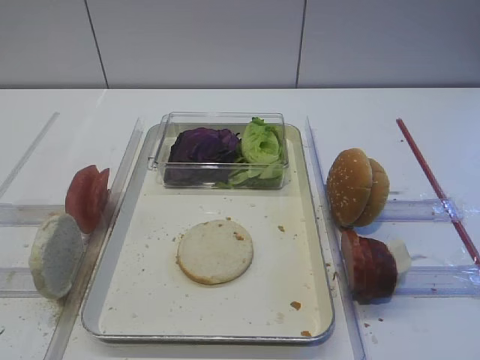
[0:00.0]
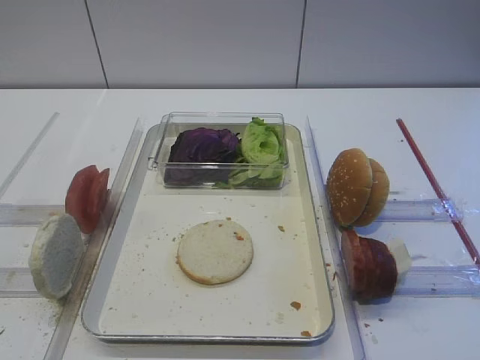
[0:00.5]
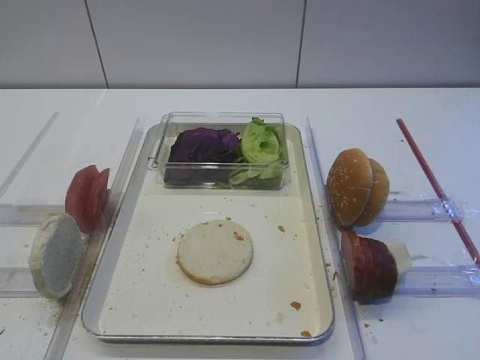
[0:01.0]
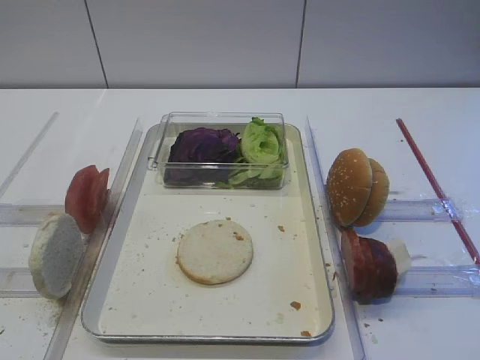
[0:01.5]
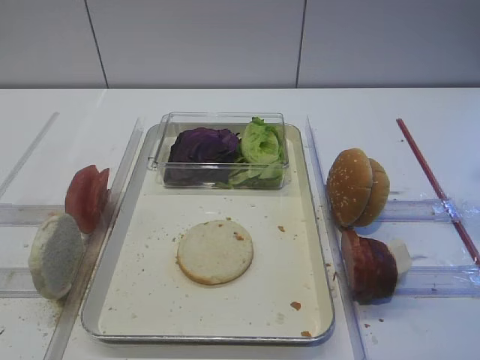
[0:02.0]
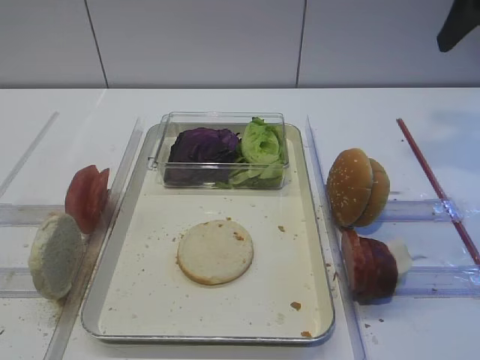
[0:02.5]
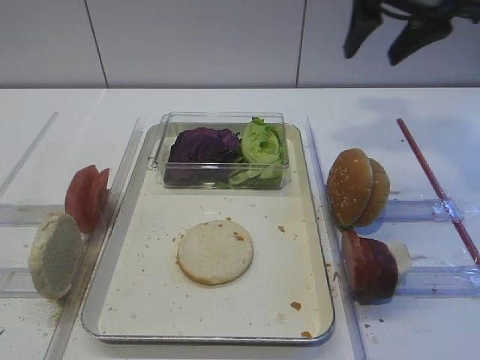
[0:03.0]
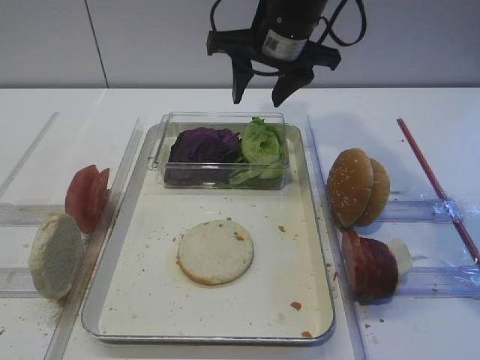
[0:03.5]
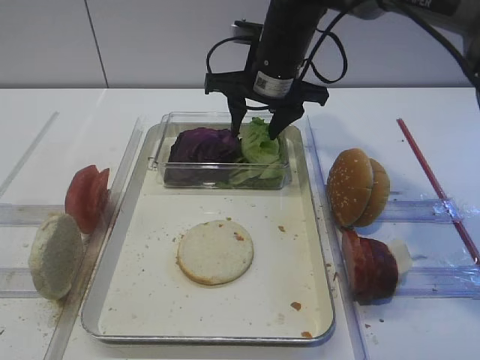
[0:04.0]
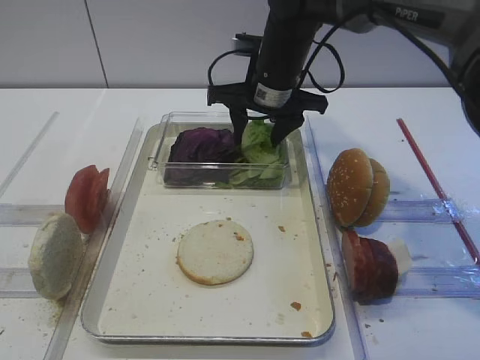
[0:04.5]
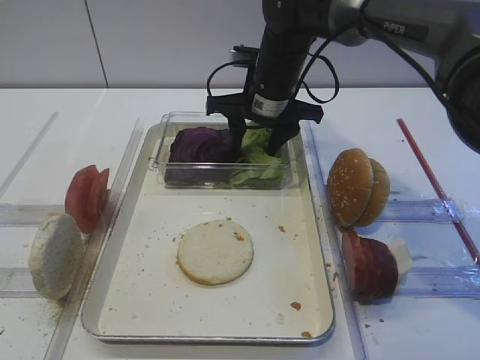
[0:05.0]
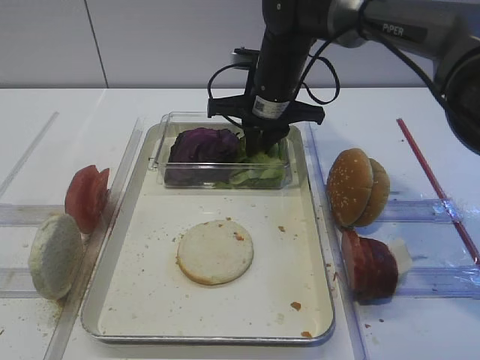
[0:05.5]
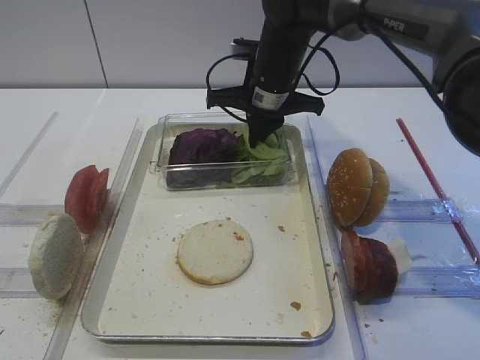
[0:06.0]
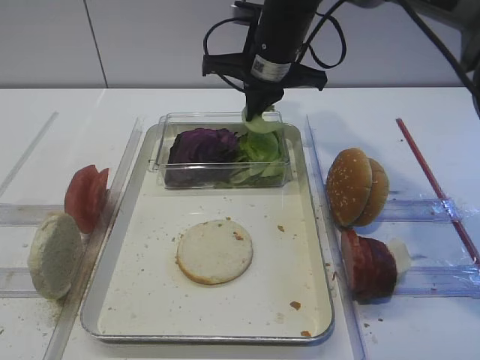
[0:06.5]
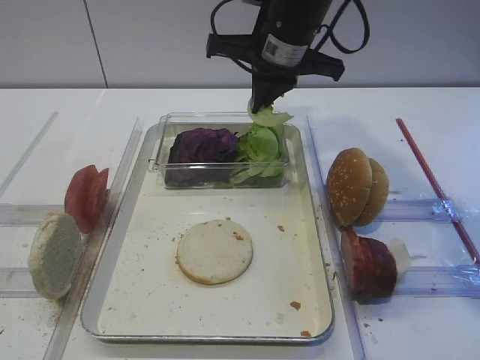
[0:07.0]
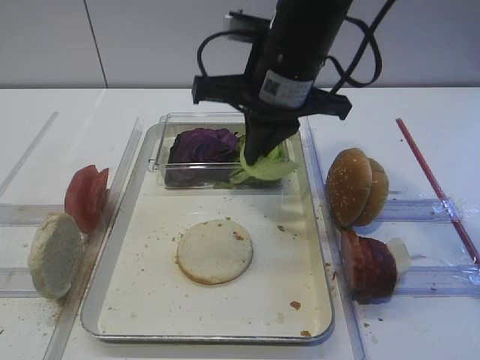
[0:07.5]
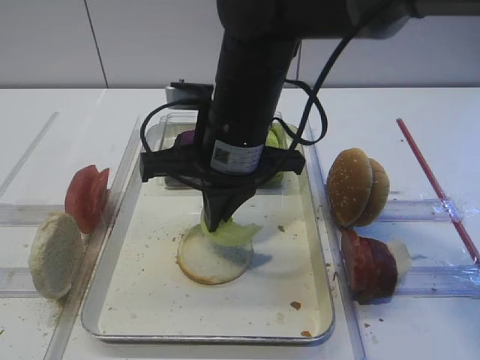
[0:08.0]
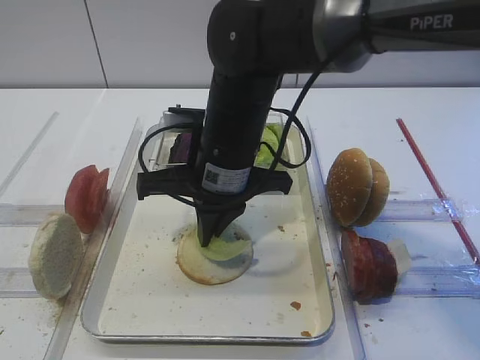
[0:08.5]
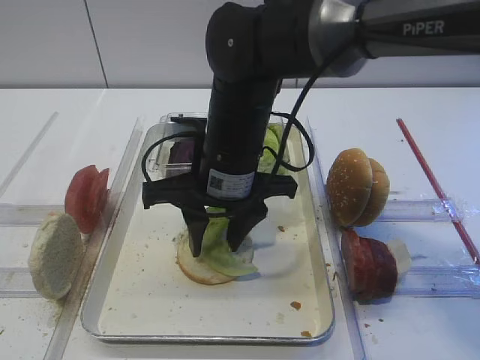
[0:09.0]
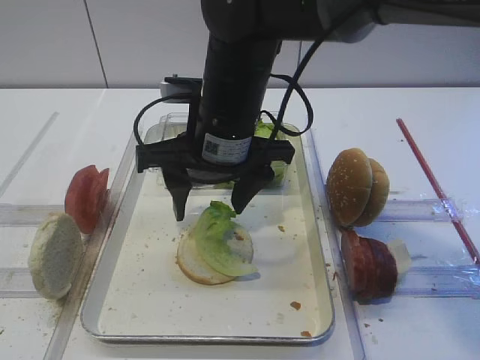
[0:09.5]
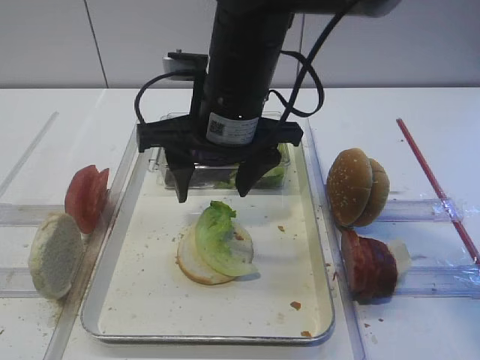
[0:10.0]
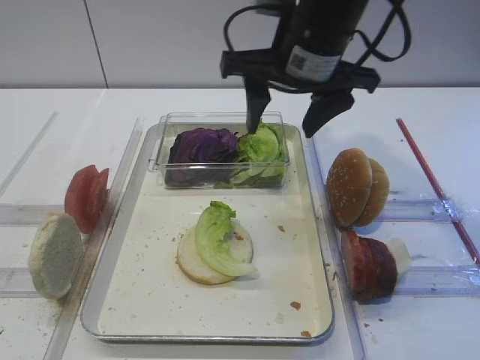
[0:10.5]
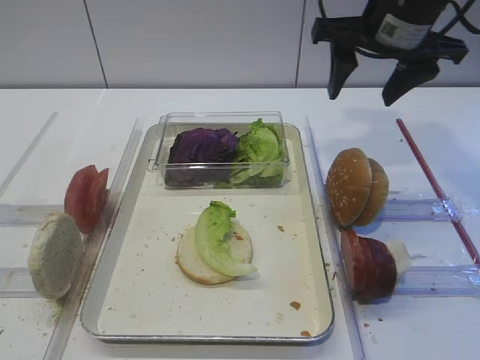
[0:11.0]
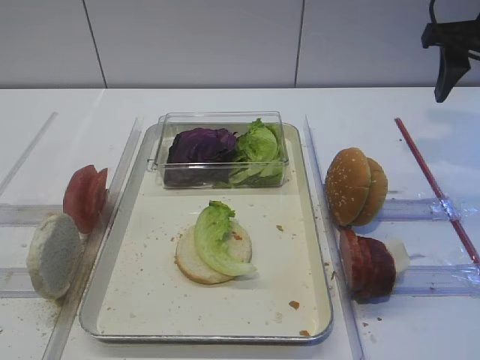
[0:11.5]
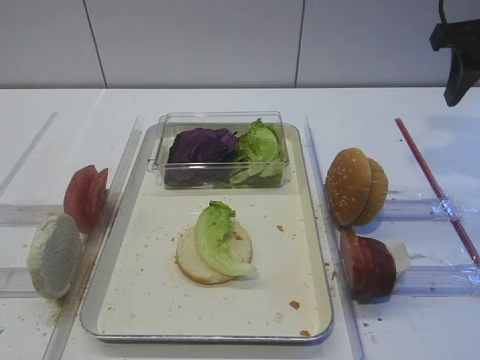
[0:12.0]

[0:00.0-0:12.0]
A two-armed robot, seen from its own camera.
Step, 0:00.0 to 0:06.5: Pick up the lettuce leaf with the right gripper.
Step, 0:07.0 to 0:10.0: Place the lettuce leaf on the bread slice with the right gripper.
0:02.0 to 0:04.0: The right gripper shifts some 35 cm forward, to the left and downward.
0:04.0 to 0:06.0: The right gripper closes up.
0:06.0 to 0:08.0: The right gripper moves backward, some 15 cm.
0:08.0 to 0:10.0: The right gripper opens up.
0:10.0 to 0:12.0: The right gripper goes roughly 30 cm to the right.

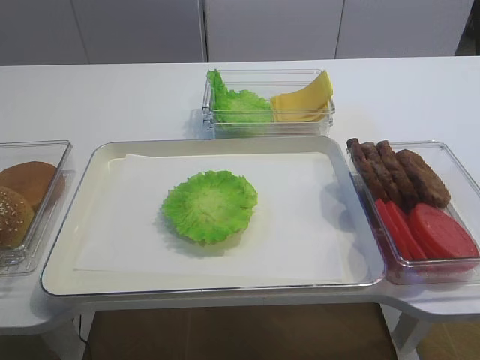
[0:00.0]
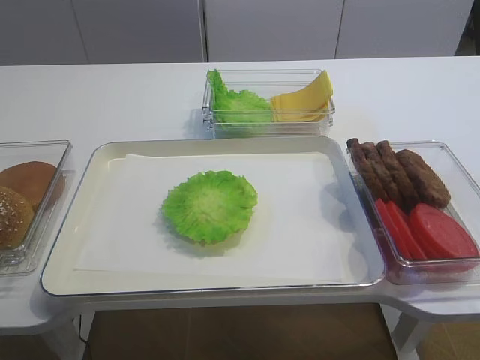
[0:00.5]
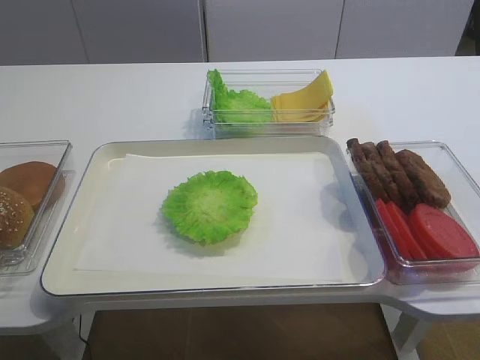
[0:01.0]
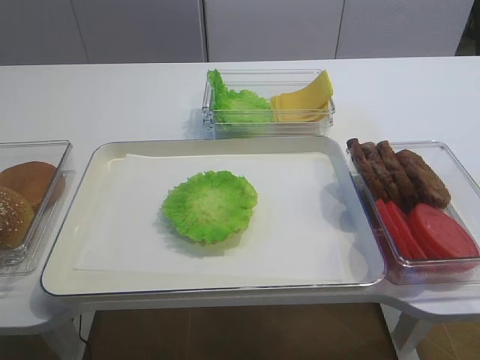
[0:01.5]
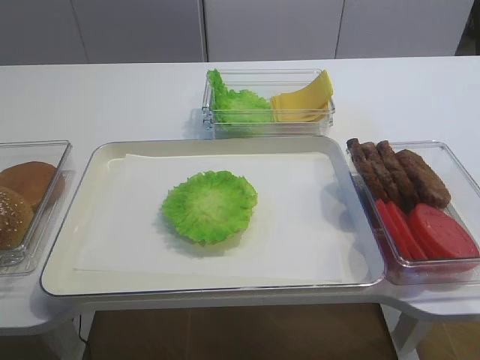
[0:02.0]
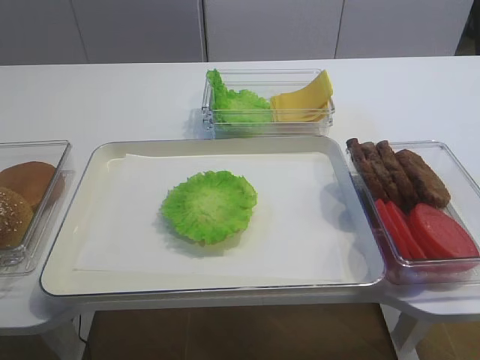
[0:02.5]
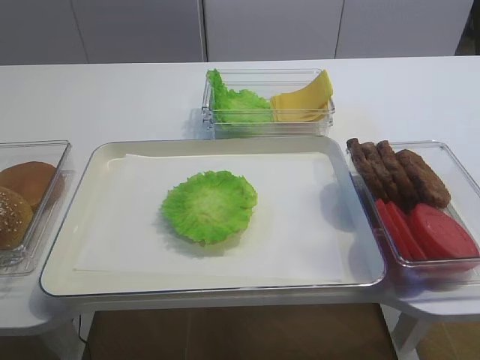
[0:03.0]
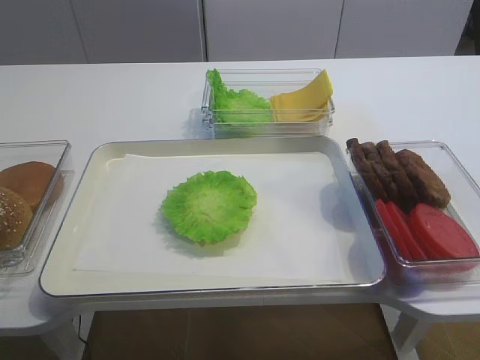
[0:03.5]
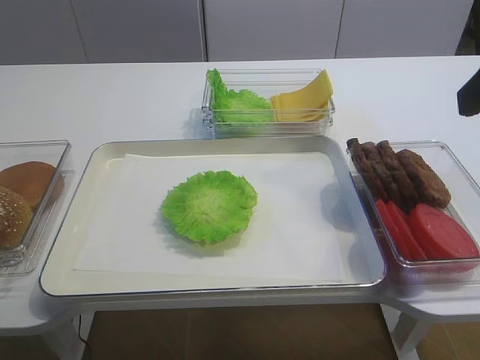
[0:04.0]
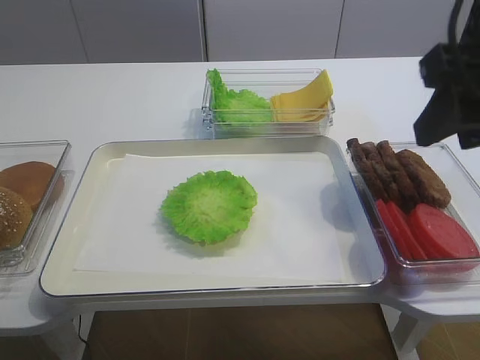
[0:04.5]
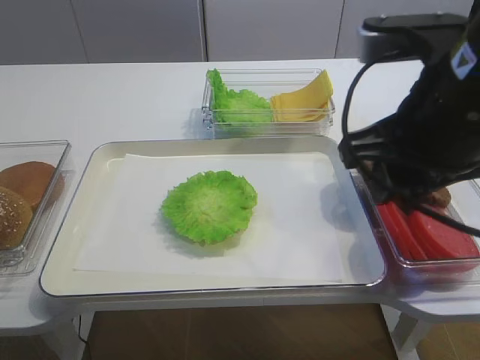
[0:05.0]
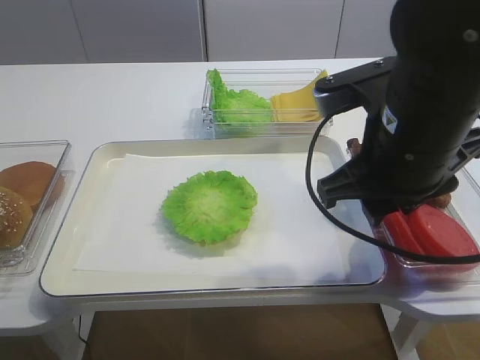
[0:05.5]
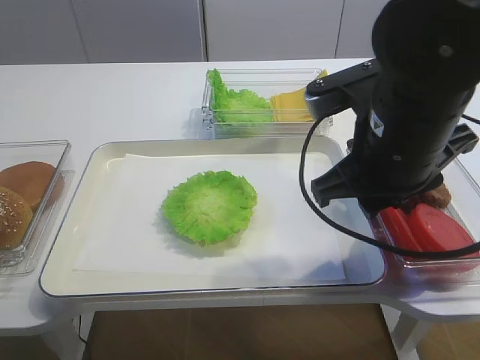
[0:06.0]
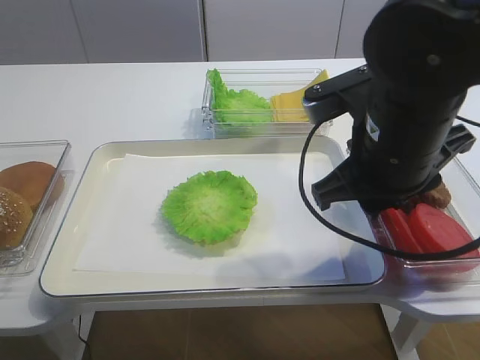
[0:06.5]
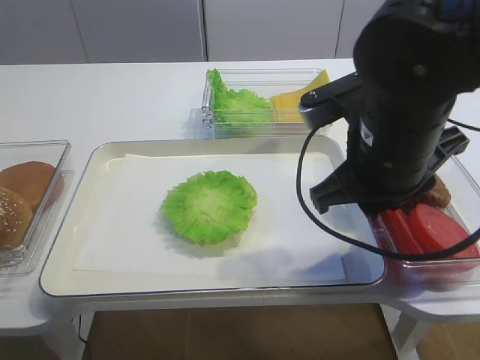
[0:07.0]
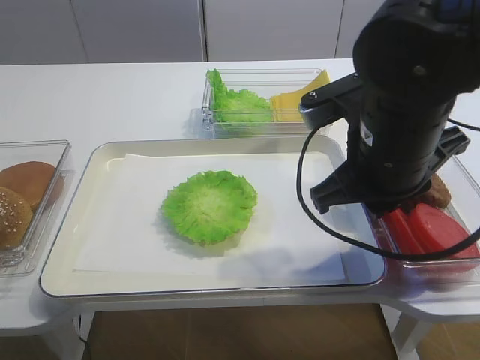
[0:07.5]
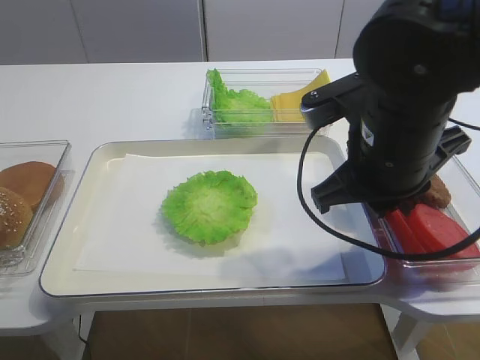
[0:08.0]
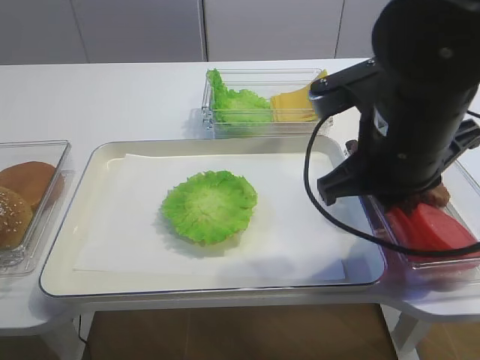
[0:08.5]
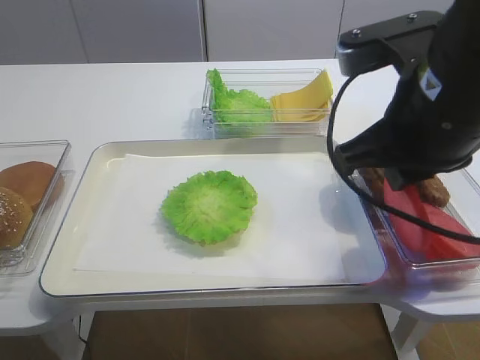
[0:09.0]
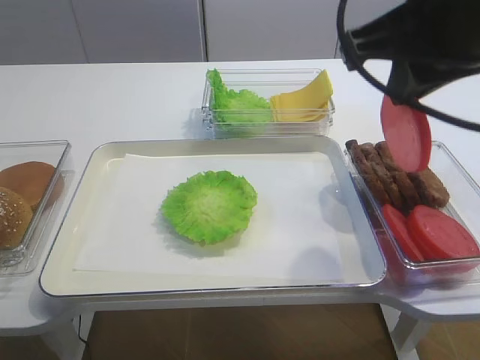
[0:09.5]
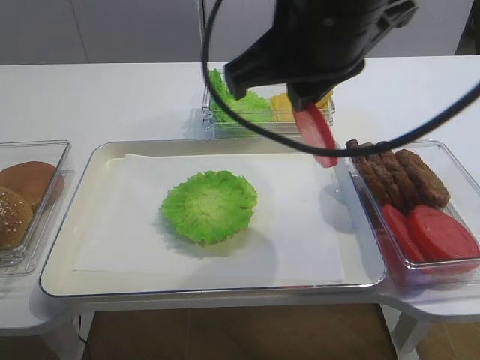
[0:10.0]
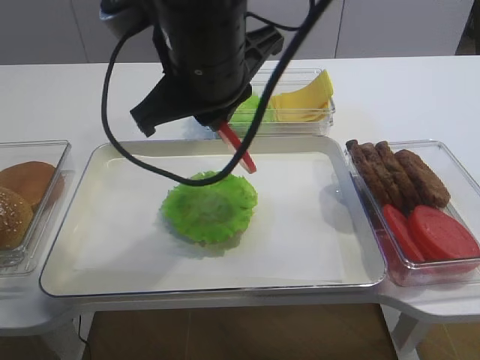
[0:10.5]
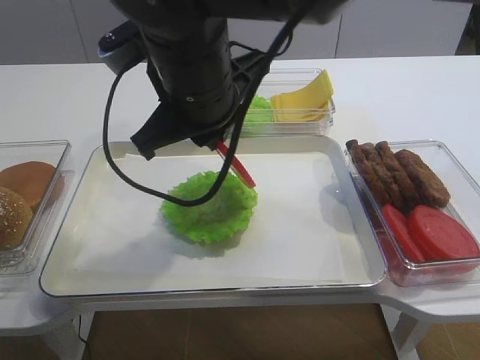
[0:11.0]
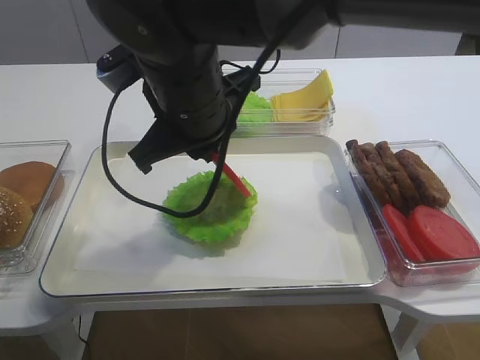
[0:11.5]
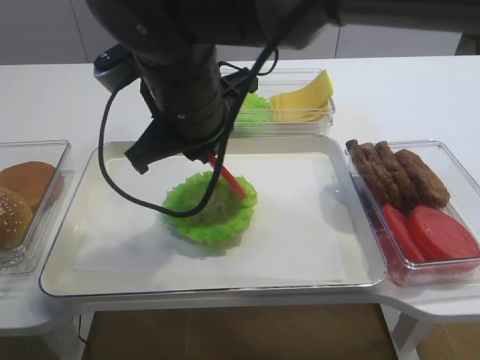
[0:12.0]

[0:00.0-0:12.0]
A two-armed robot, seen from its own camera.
Step, 0:00.0 to 0:09.0: Pick up the tomato slice with the right gripper.
0:02.0 to 0:04.0: The right gripper is displaced forward and upward by roughly 20 cm.
0:04.0 to 0:06.0: The right gripper travels downward, to the left and forward by about 15 cm.
0:06.0 to 0:08.0: The right gripper closes.
0:08.0 to 0:10.0: The right gripper moves upward and to the left, approximately 15 cm.
0:10.0 to 0:12.0: The right gripper travels to the left and downward by about 15 cm.

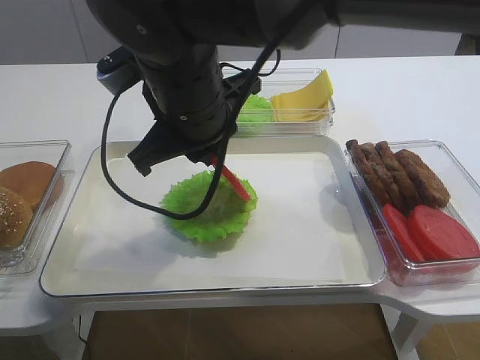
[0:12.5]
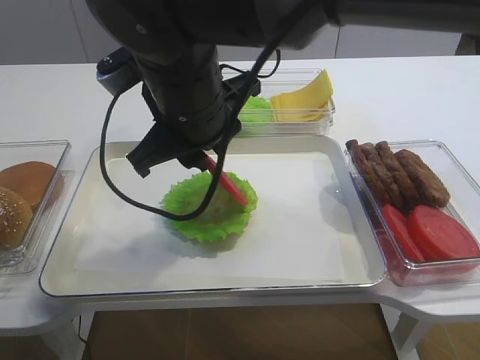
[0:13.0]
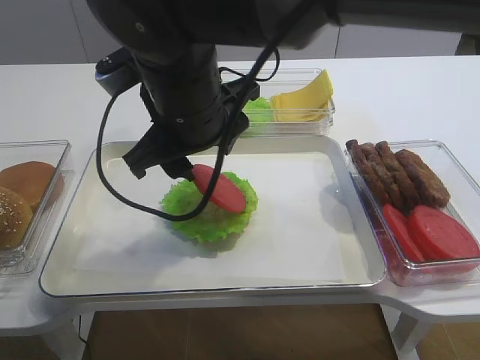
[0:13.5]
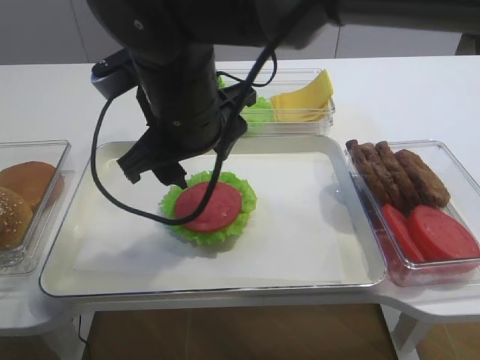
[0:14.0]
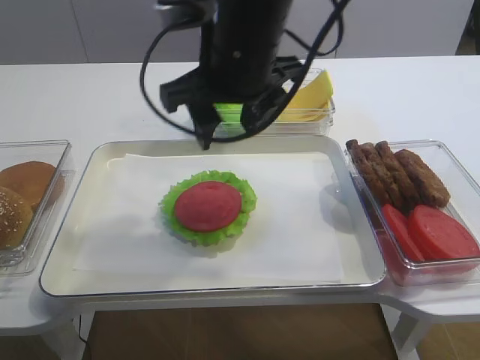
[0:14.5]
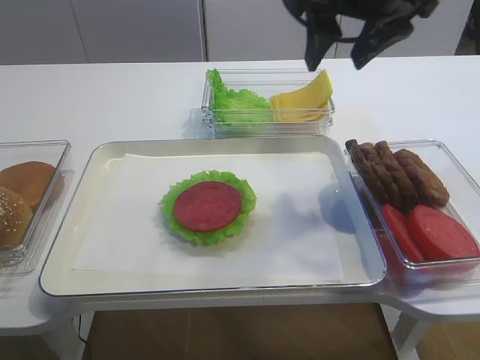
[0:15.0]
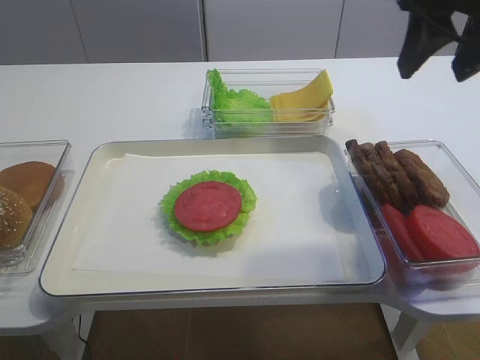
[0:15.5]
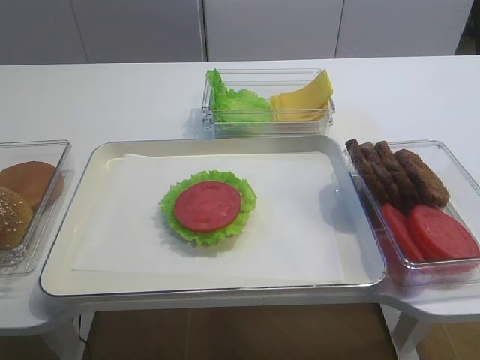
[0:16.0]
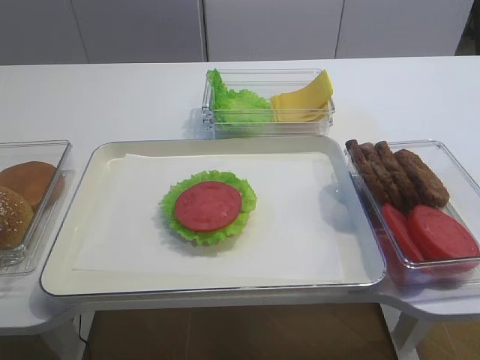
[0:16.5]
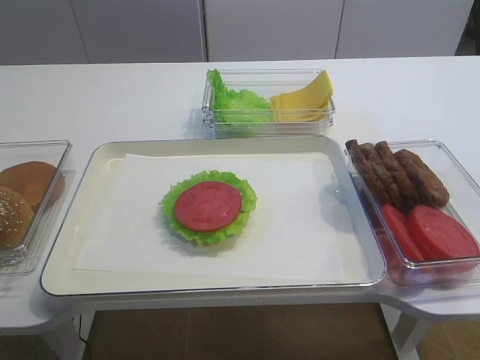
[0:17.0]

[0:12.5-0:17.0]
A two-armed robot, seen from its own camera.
0:12.5 to 0:14.5: The right gripper shifts approximately 5 cm to the right, and opens its fingers.
0:14.5 to 0:17.0: The right gripper moves backward and to the right, some 40 cm.
